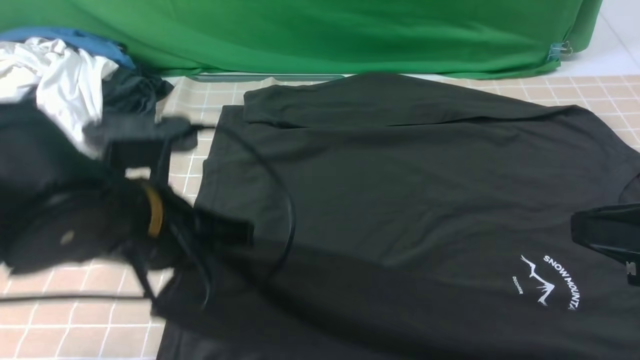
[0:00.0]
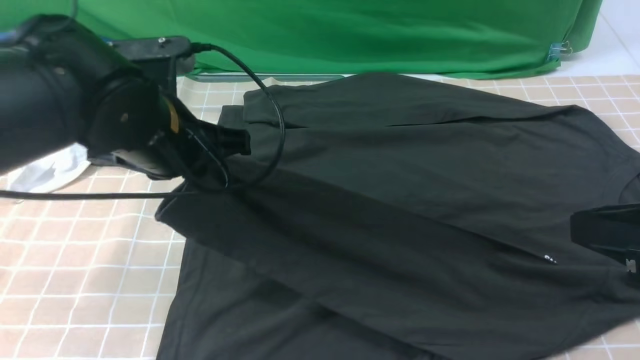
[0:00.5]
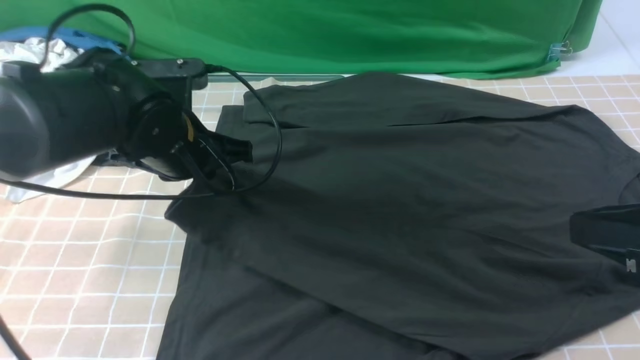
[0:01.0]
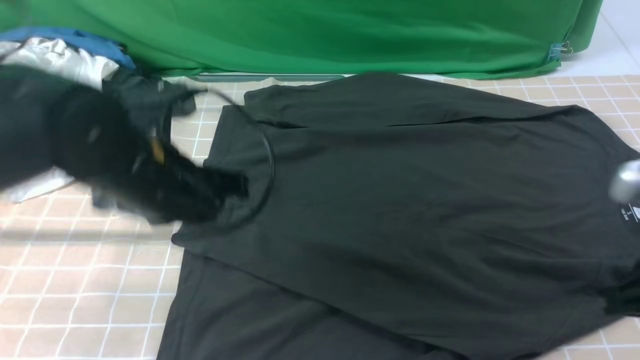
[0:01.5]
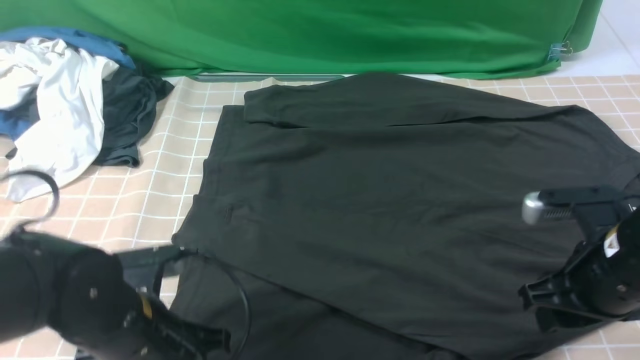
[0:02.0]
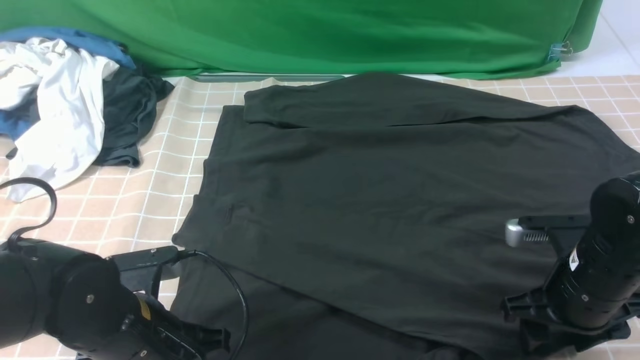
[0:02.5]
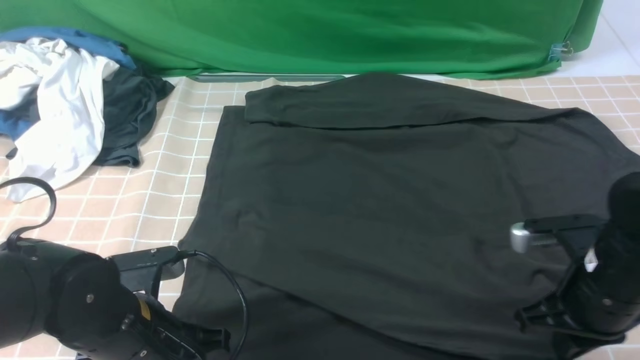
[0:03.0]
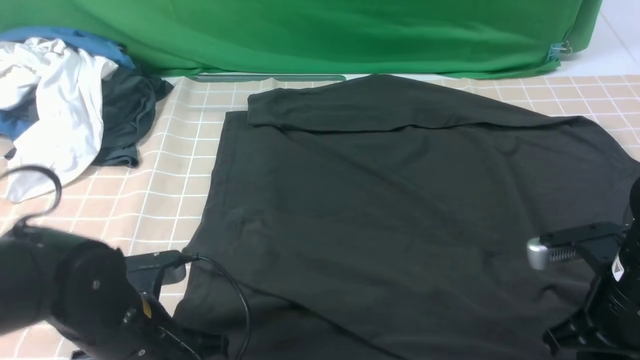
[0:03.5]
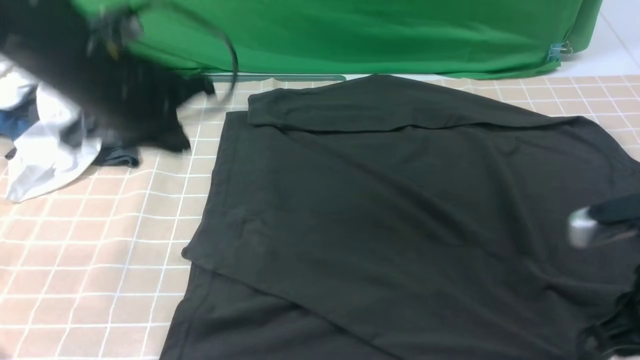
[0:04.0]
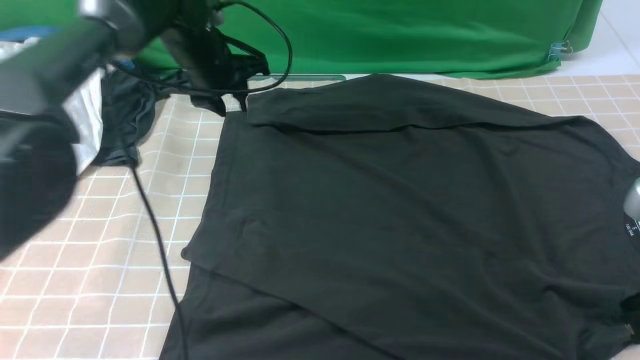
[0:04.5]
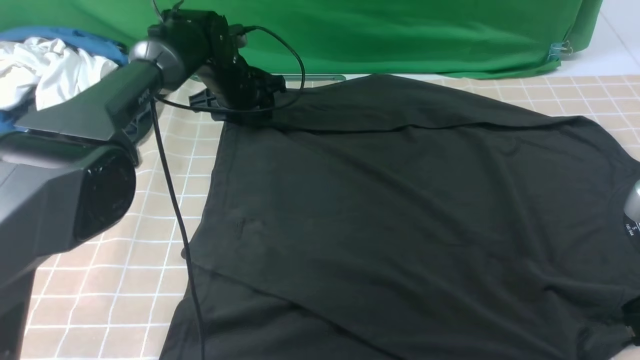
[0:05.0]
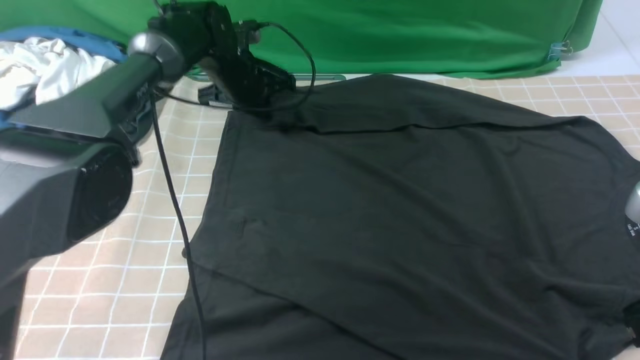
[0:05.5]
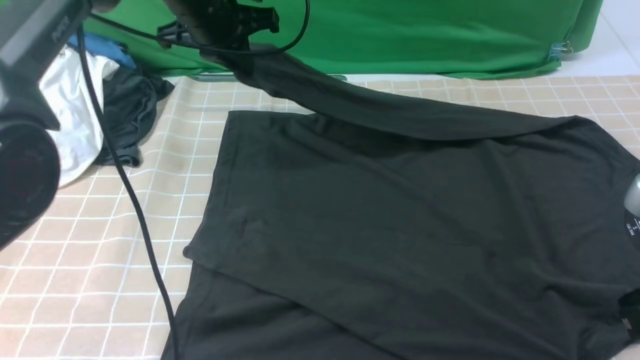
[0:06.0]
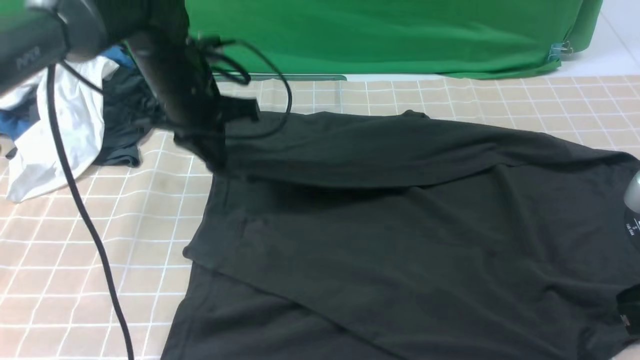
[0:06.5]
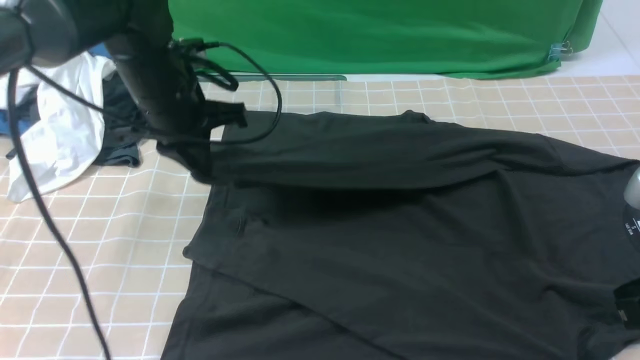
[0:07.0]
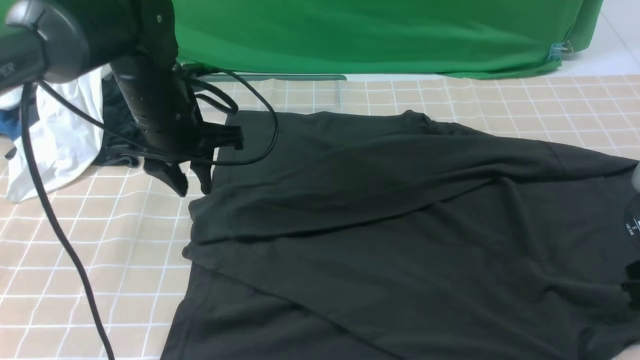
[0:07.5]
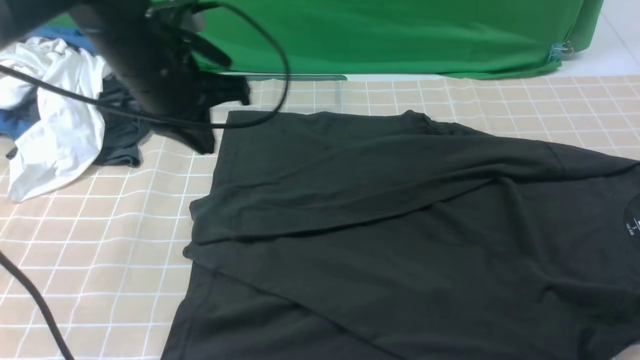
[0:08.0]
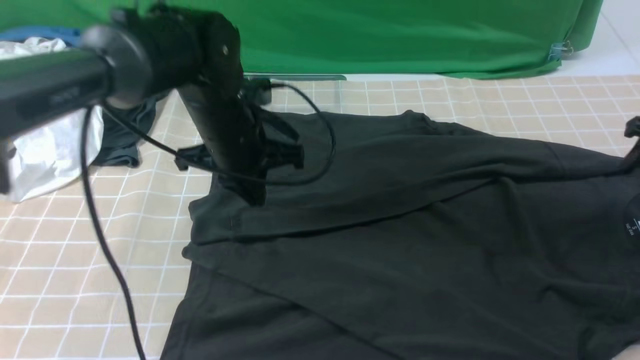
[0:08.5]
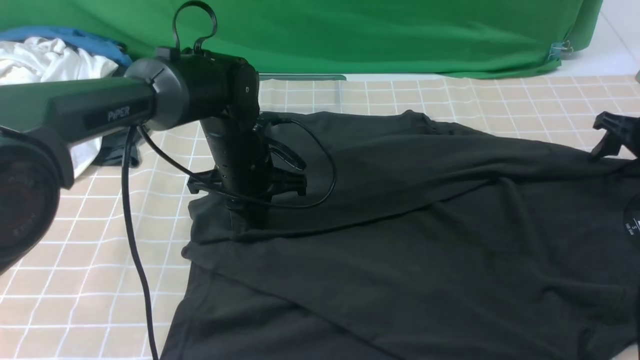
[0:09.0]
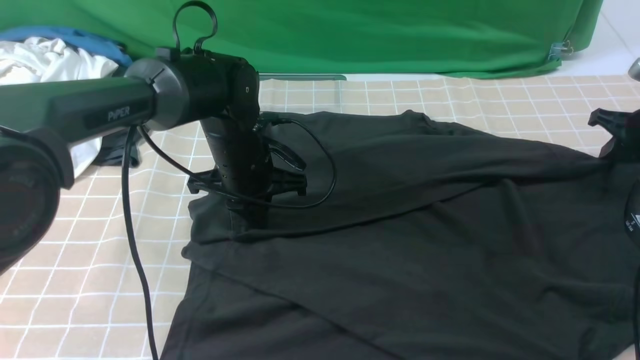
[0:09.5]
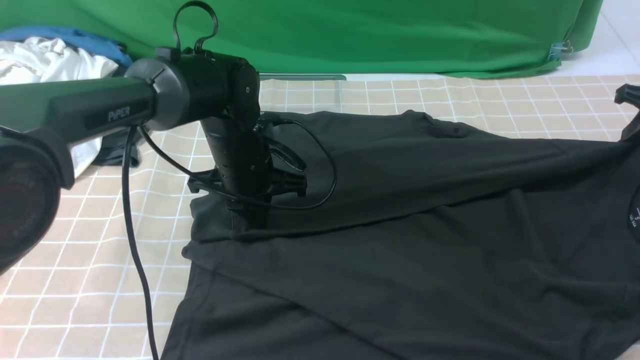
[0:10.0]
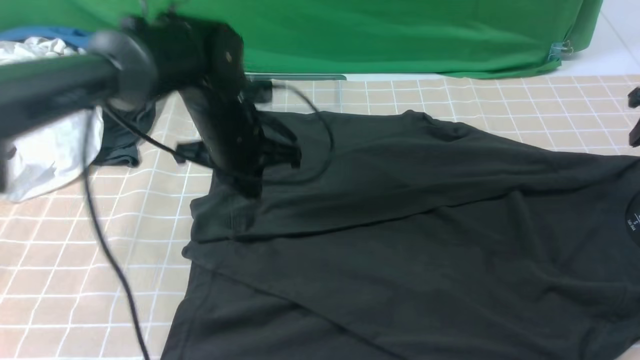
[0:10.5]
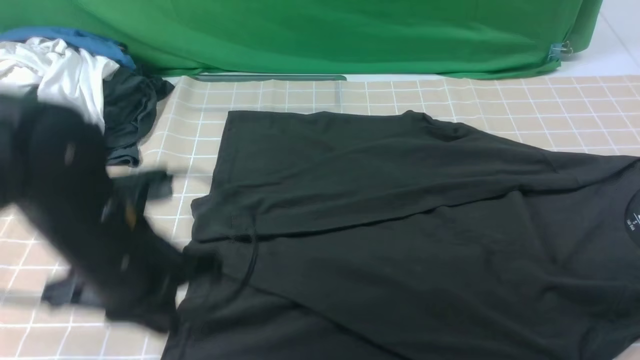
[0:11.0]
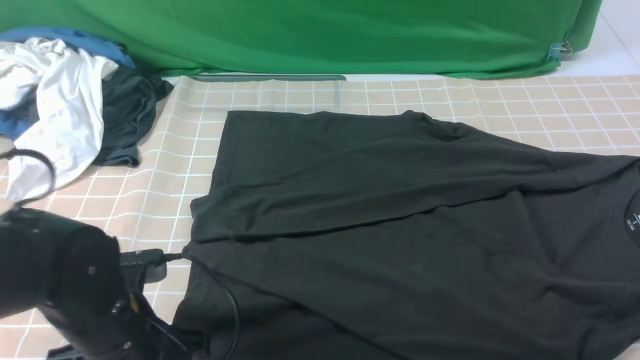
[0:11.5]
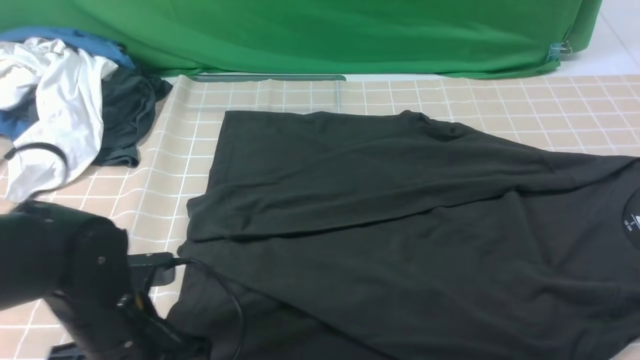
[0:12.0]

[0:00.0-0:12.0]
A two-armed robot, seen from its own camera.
Step, 0:00.0 to 0:01.0: use the left arm to drag and place the cuff at the centered position on the left edge of the fabric.
Step, 0:01.5 to 0:05.0: use the left arm to clamp the cuff farthest from it.
Step, 0:05.5 to 0:07.5: use the left arm to drag and drop the cuff onto the cuff closest to the left arm.
0:00.0 to 0:02.0: The right gripper moves downward and forward, approximately 15 cm, and opens its fingers, while the left gripper moves downward, about 10 cm, and travels forward and back again, some 10 cm each way.
0:02.0 to 0:04.0: The left gripper shifts about 20 cm forward and upward, while the right gripper goes about 5 cm upward and backward, and closes up.
0:04.0 to 0:06.0: The left gripper shifts roughly 15 cm forward, and opens, then closes once more.
0:06.0 to 0:08.0: The right gripper is displaced forward and to the right by some 15 cm. Meanwhile the left gripper moves backward, approximately 10 cm, and opens, then closes again.
0:08.0 to 0:10.0: The right gripper goes approximately 20 cm forward, downward and to the right, and opens, then closes once more, while the left gripper heads downward, covering roughly 15 cm.
0:10.0 to 0:12.0: The right gripper goes roughly 30 cm backward, to the left and upward, while the left gripper moves backward, about 20 cm, and opens, then closes once more.

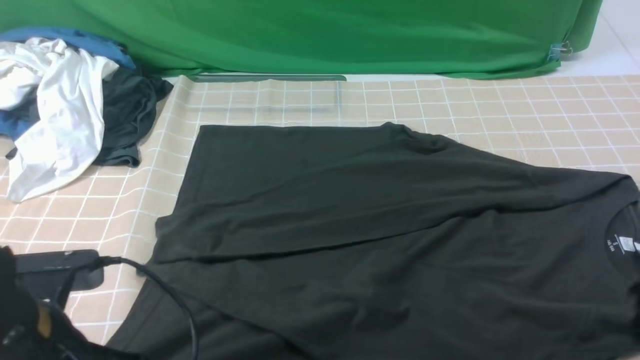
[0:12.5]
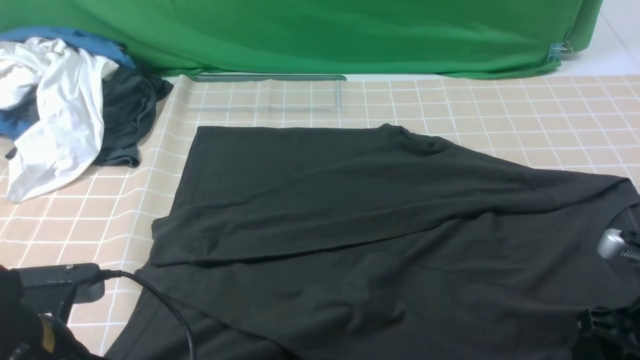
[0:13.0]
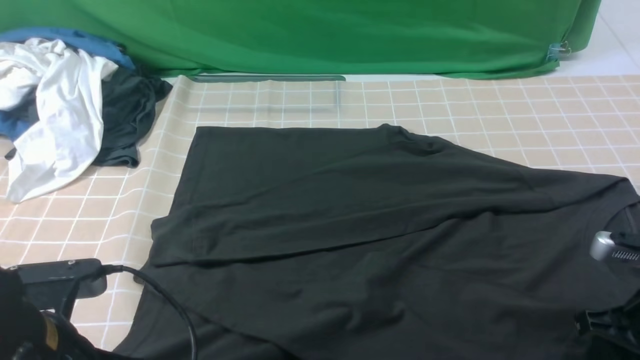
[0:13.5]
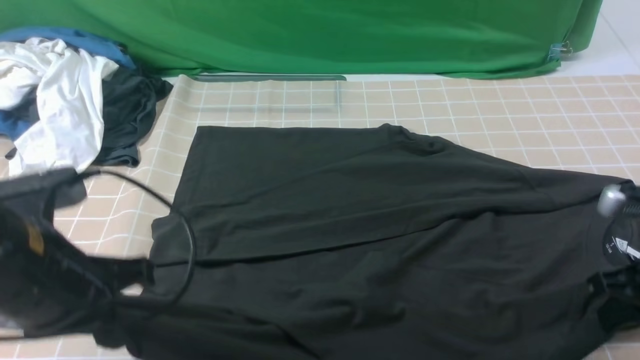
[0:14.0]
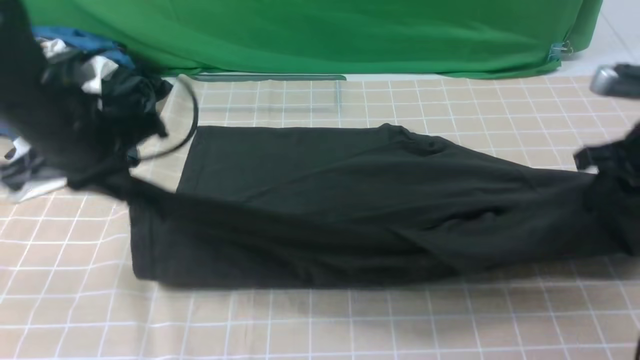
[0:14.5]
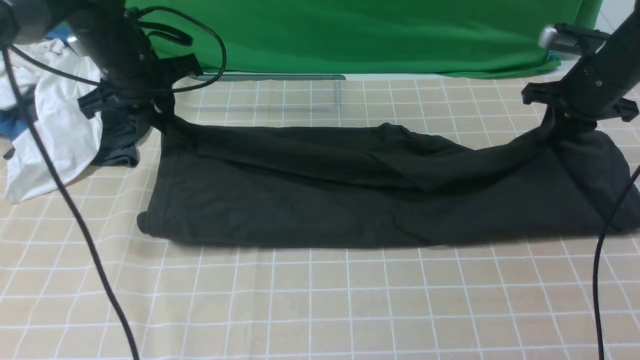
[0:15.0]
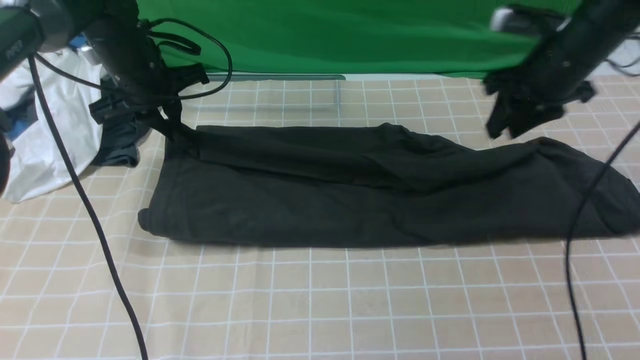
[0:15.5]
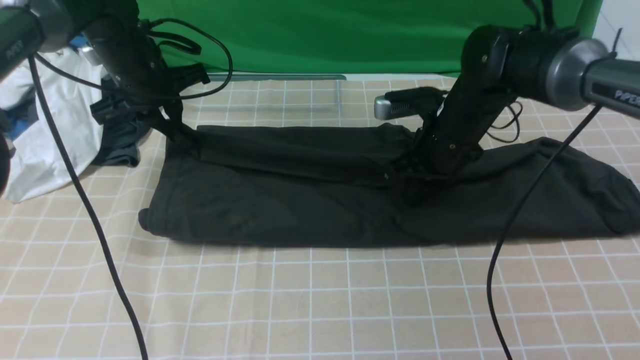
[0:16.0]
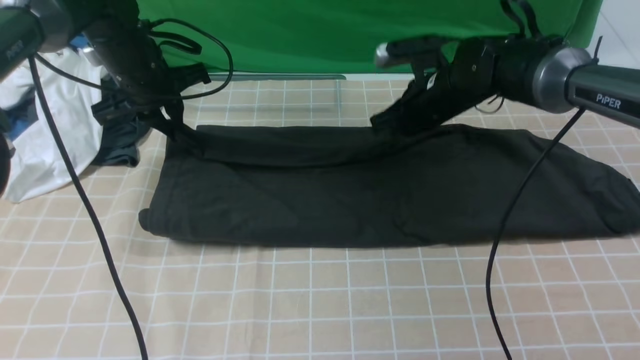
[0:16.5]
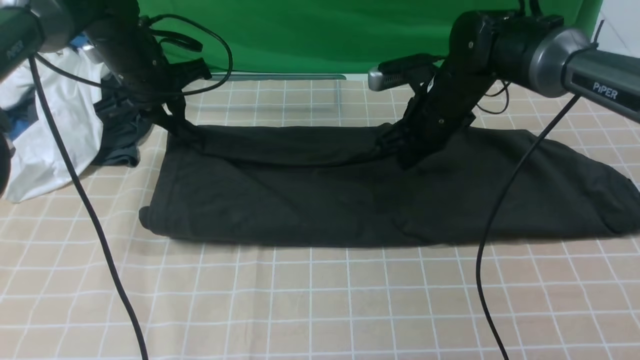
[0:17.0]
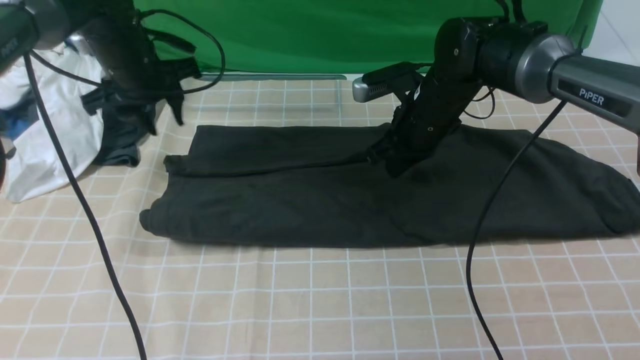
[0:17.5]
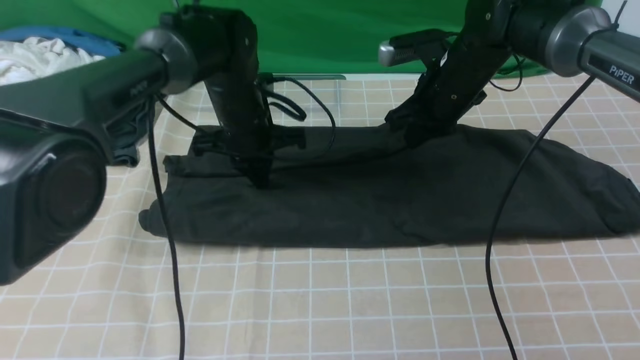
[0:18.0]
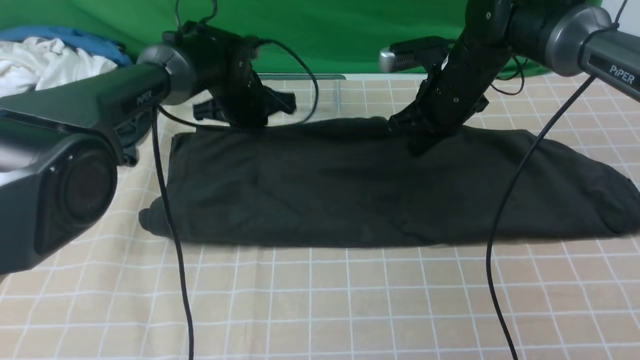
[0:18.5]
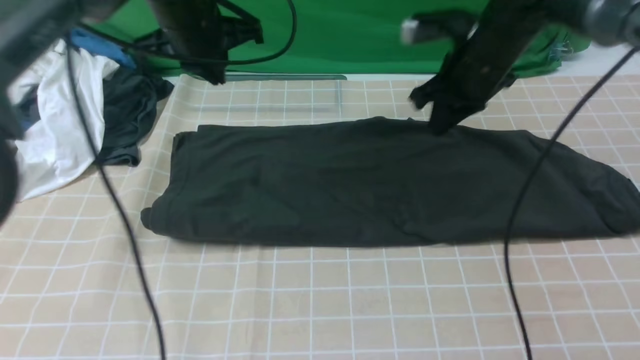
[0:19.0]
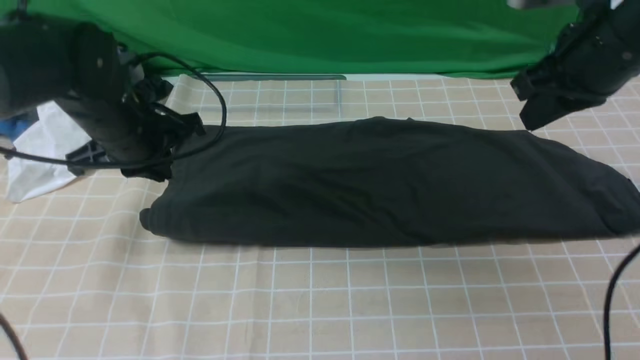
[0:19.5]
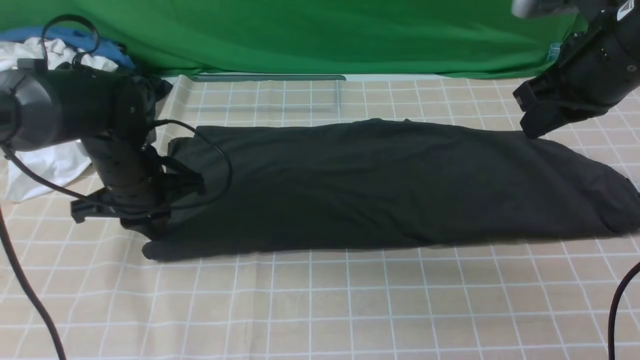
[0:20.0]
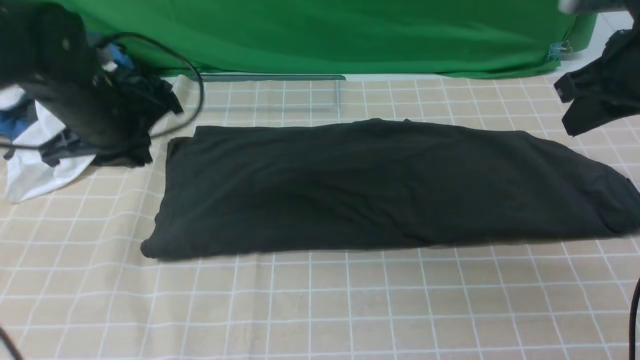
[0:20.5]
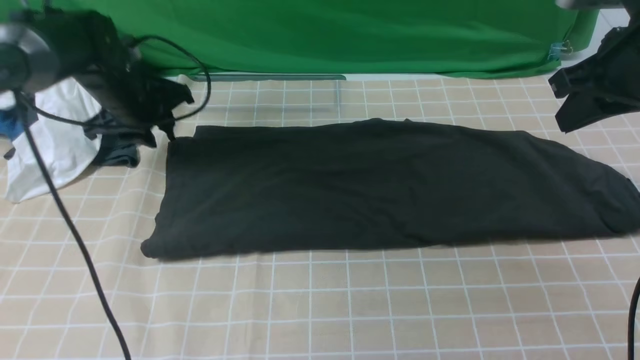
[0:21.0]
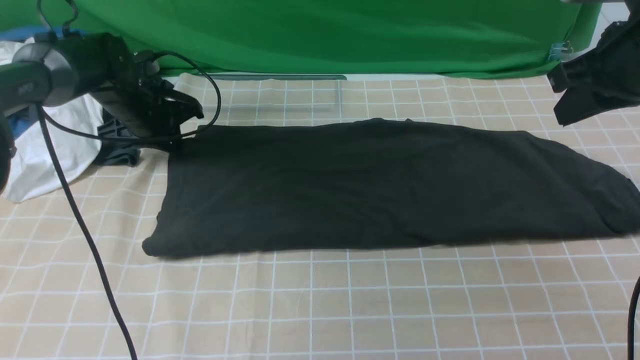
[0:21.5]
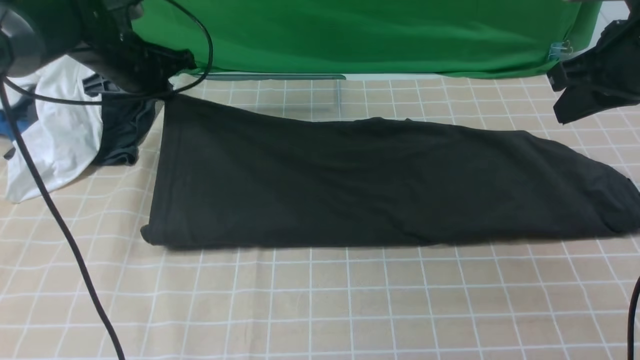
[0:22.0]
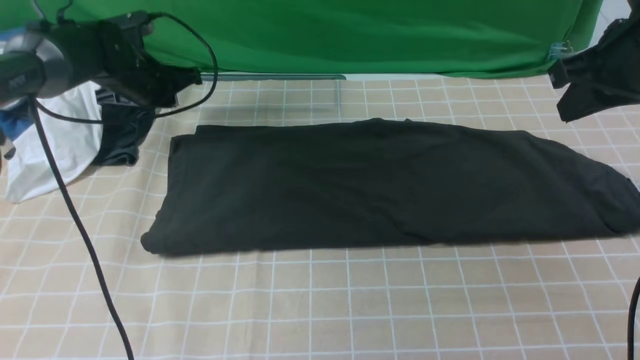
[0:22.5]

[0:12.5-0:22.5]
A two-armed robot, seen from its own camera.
Step, 0:14.0 to 0:18.5: use both arms to drag the lower edge of the fabric forward and fold it over the upper edge.
0:12.5 to 0:14.5: The right gripper is displaced forward by some 15 cm, and closes, while the left gripper goes some 20 cm forward and upward.
0:14.5 to 0:16.5: The left gripper travels forward and downward by approximately 15 cm, while the right gripper goes roughly 25 cm to the left, forward and downward, and opens, then closes once more.
0:16.5 to 0:18.5: The left gripper heads to the right, covering approximately 10 cm, and opens and closes again.
0:18.5 to 0:20.5: The right gripper shifts roughly 20 cm to the right, backward and upward. Meanwhile the left gripper goes some 20 cm backward, to the left and upward.
0:20.5 to 0:22.5: The left gripper is displaced forward and downward by some 15 cm, and opens, then closes once more.
